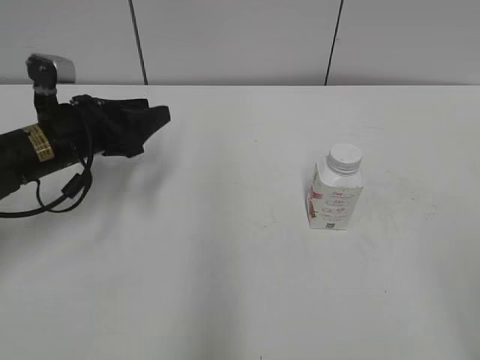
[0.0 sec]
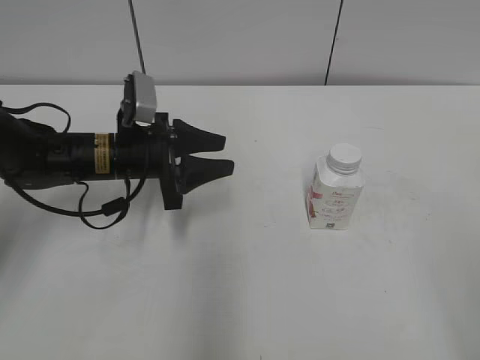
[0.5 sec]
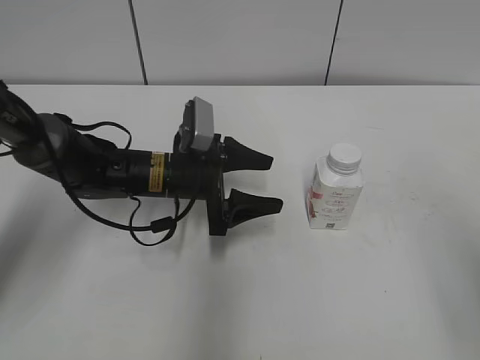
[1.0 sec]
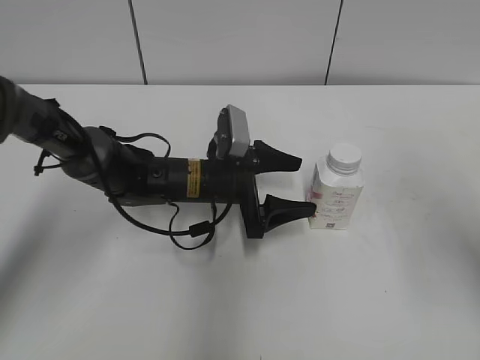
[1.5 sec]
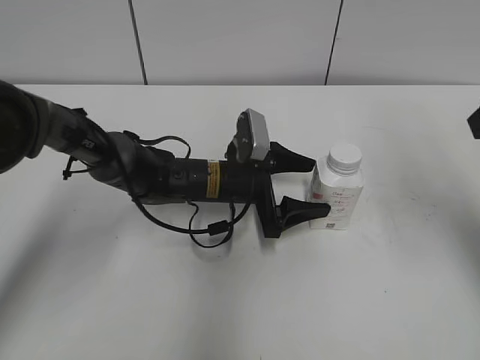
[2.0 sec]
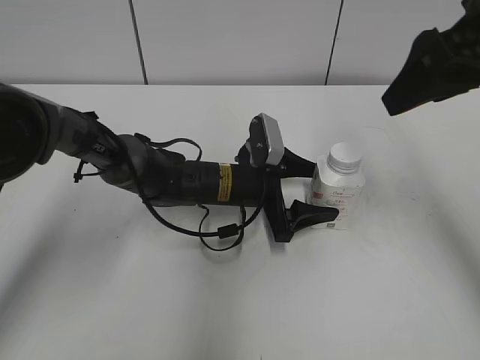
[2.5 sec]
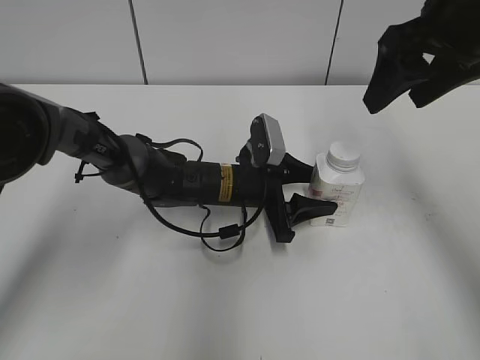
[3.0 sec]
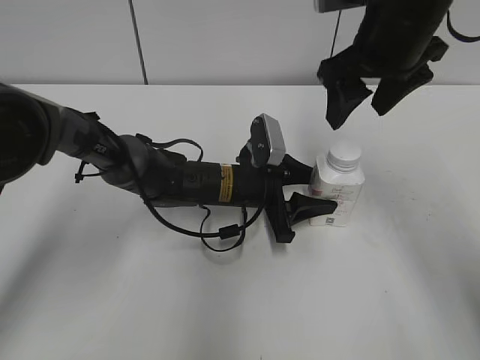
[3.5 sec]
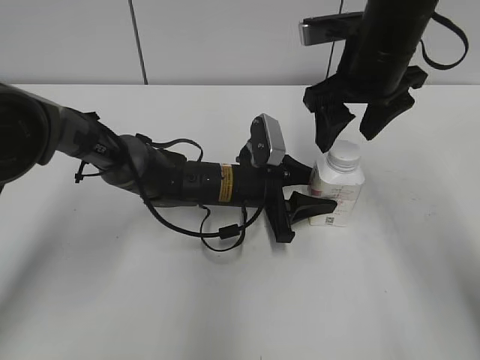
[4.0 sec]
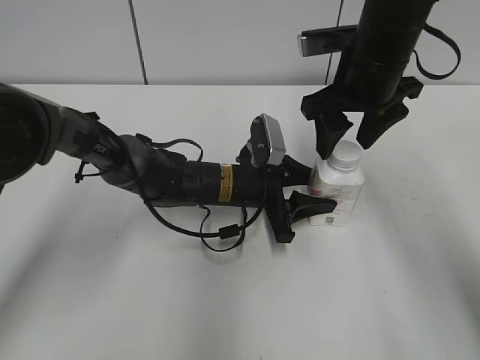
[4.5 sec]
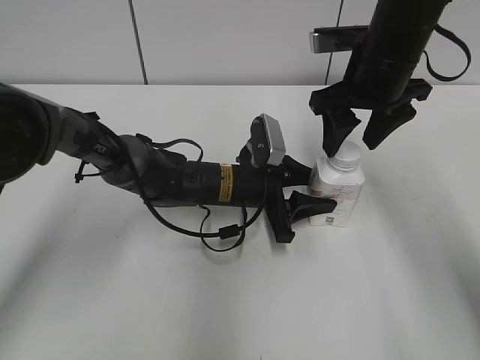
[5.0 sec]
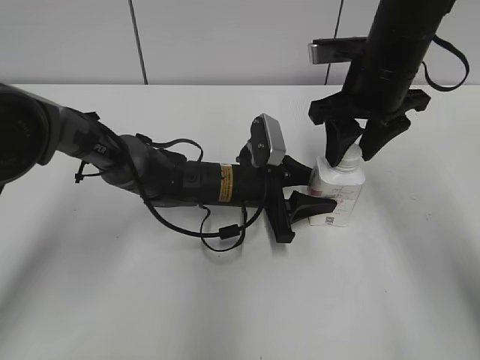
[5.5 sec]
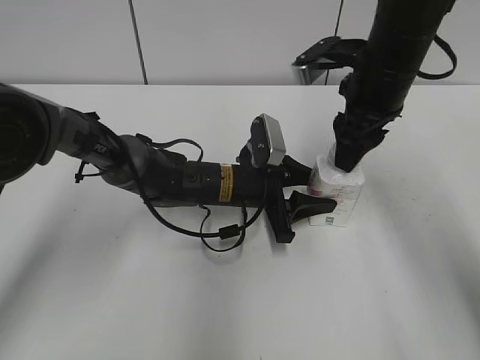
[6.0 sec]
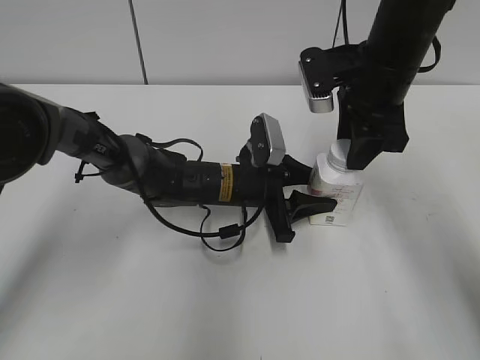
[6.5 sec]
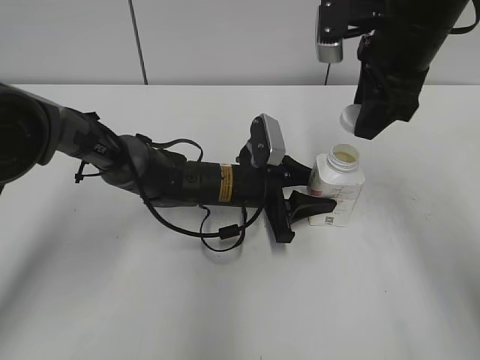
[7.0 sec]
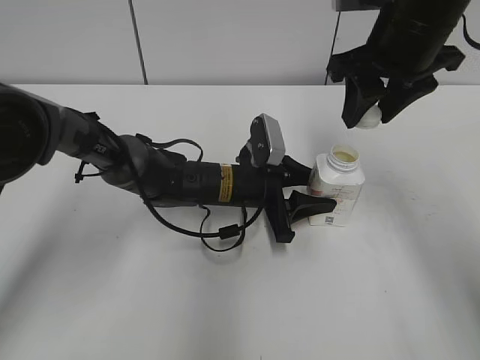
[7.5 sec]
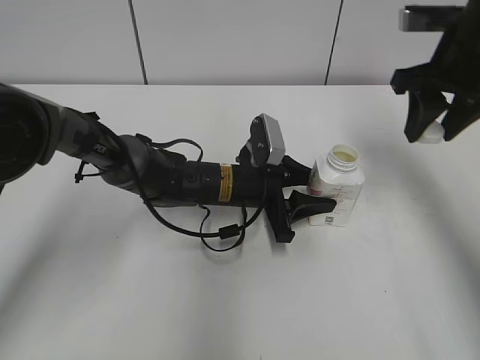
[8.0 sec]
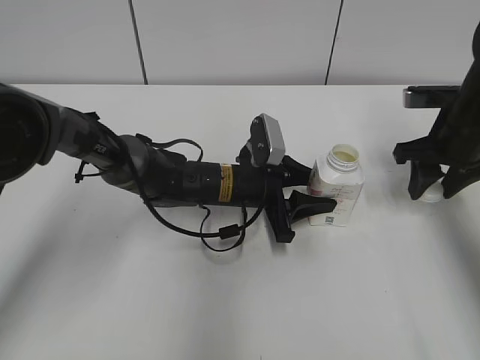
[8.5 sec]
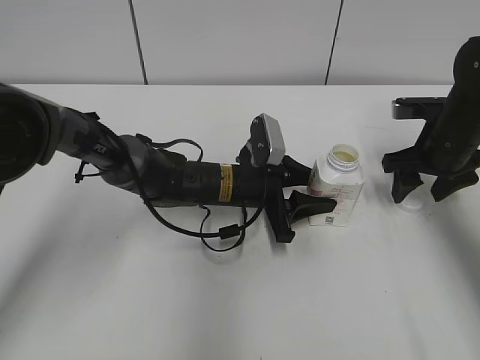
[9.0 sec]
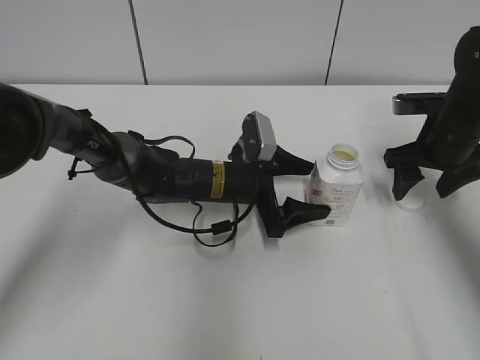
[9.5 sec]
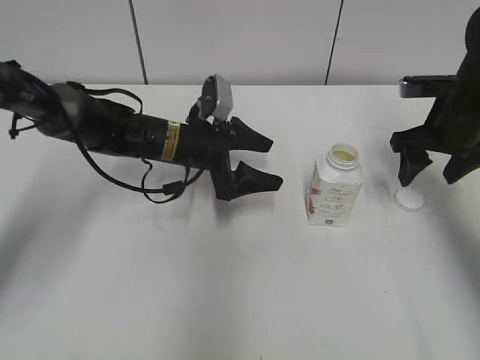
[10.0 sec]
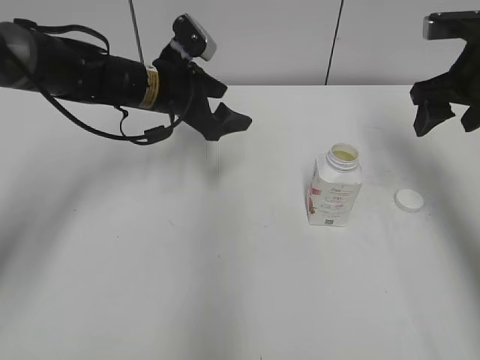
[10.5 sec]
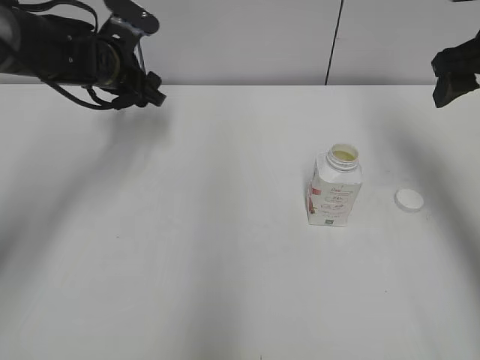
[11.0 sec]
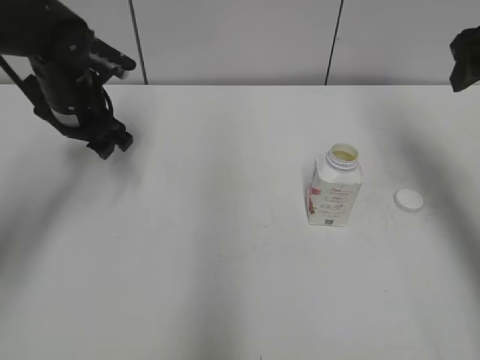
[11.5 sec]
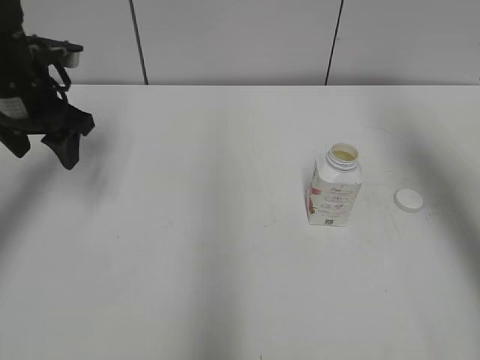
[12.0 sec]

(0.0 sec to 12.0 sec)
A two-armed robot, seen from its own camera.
Step, 0.0 sec - 3.0 sec: Grab the Yili Changqing with the left hand.
Step, 7.0 sec - 9.0 sec: Place the bottle cap on the right.
0.0 sec - 2.0 sec: The left gripper heads to the right and downward, covering roughly 20 cm, and opens up. Meanwhile the right gripper heads forward, covering about 25 cm.
2.0 sec - 4.0 sec: The right gripper travels to the left, forward and downward by some 20 cm. Meanwhile the left gripper closes.
4.0 sec - 6.0 sec: The right gripper closes up.
6.0 sec - 8.0 sec: The right gripper is displaced to the right by approximately 10 cm.
8.0 sec - 10.0 sec: The right gripper moves downward, some 10 cm, and opens; the left gripper goes approximately 5 cm to the left, and opens.
10.0 sec - 12.0 sec: The left gripper travels to the left and upward by roughly 20 cm, and closes. Meanwhile the right gripper is displaced upward by some 15 cm.

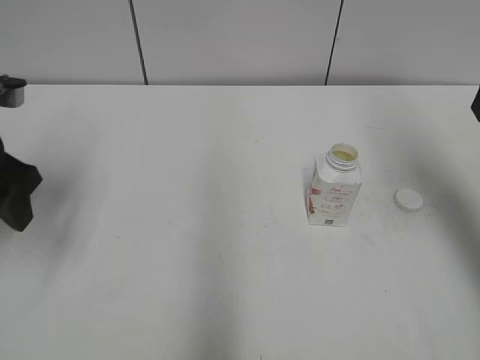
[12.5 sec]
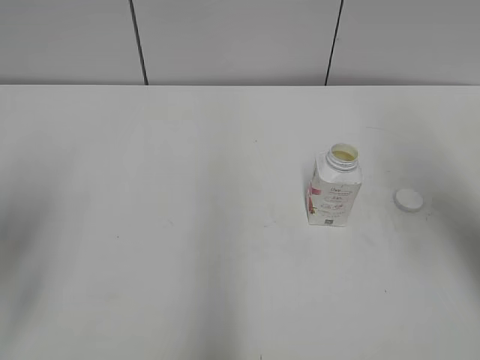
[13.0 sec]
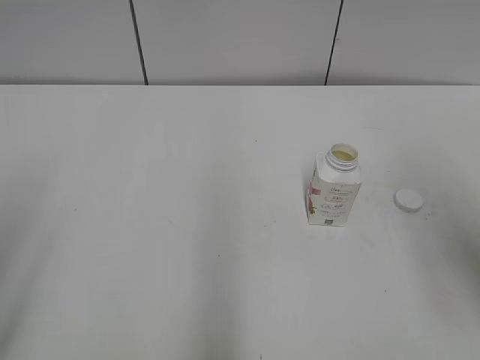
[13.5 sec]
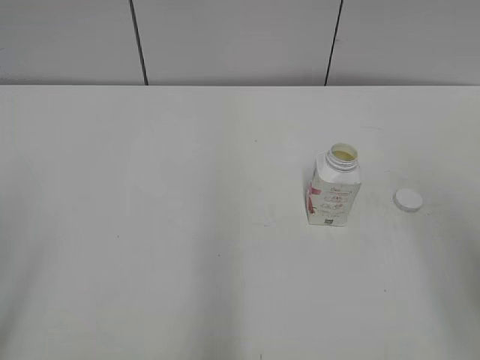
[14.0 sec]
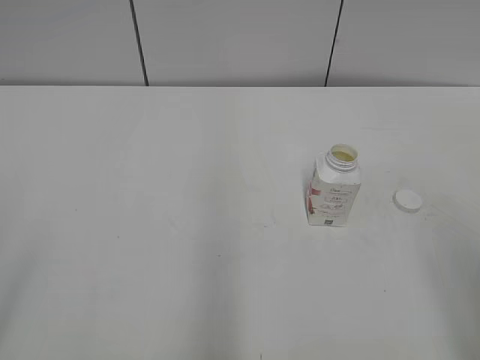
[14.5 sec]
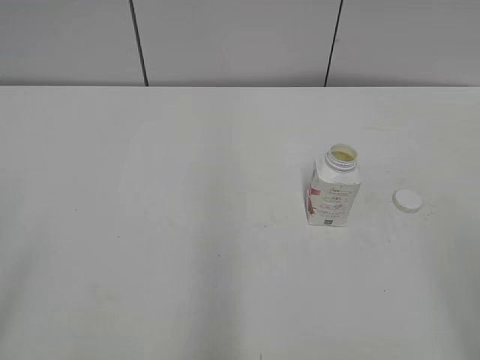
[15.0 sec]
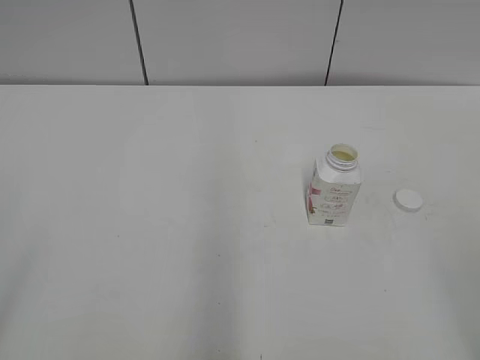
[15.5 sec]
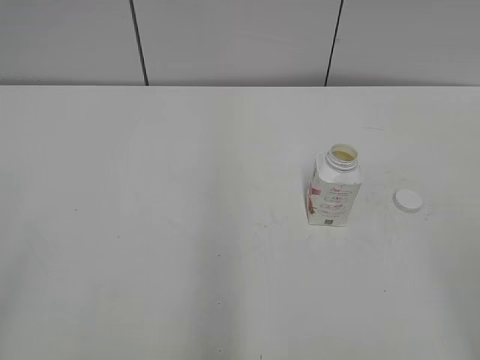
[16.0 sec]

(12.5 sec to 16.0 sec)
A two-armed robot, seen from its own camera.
12.5 sec - 14.5 sec: The two grippers go approximately 25 cm backward.
